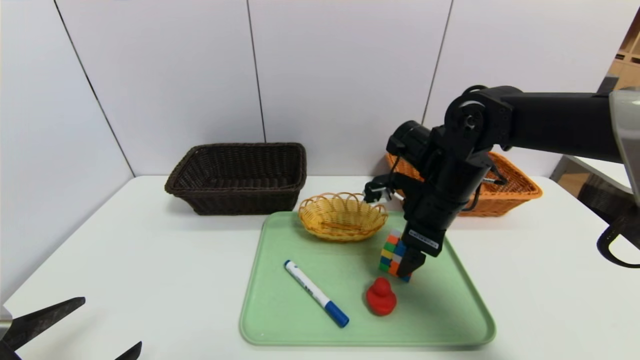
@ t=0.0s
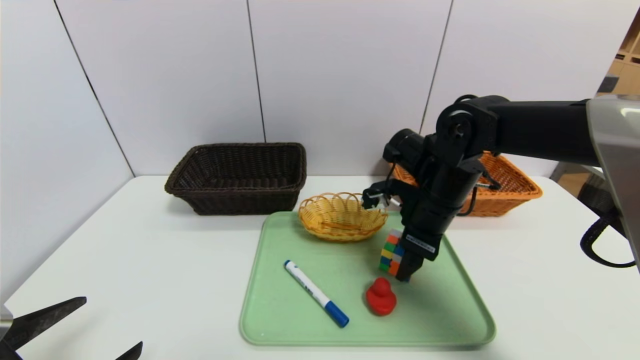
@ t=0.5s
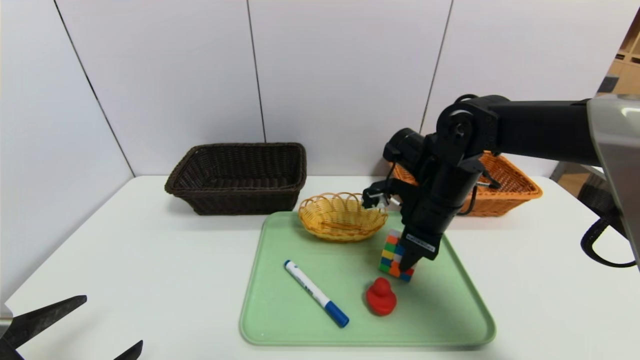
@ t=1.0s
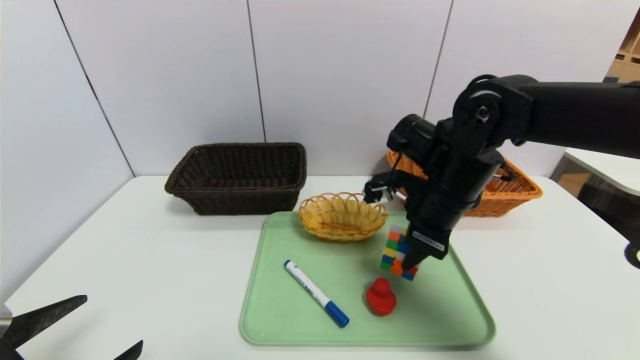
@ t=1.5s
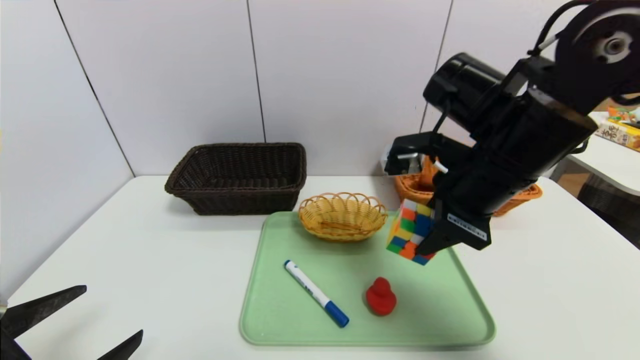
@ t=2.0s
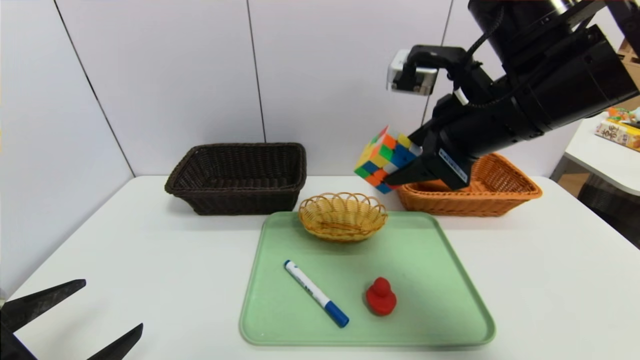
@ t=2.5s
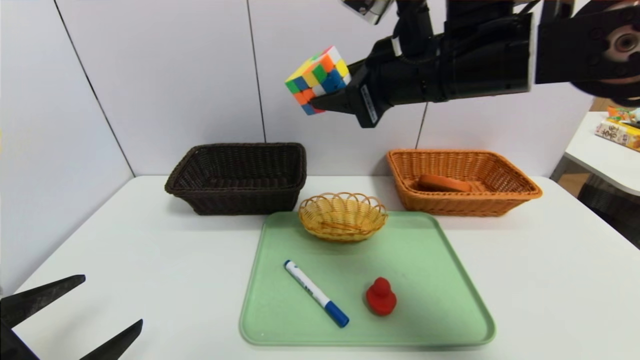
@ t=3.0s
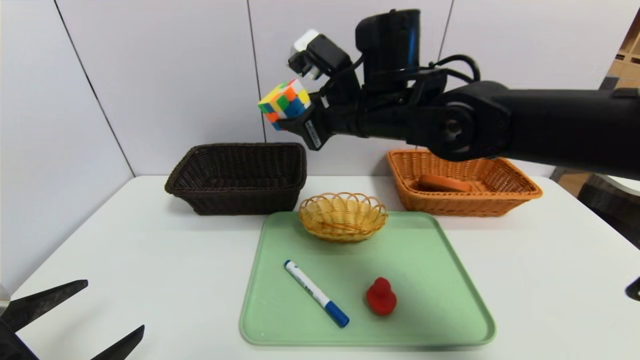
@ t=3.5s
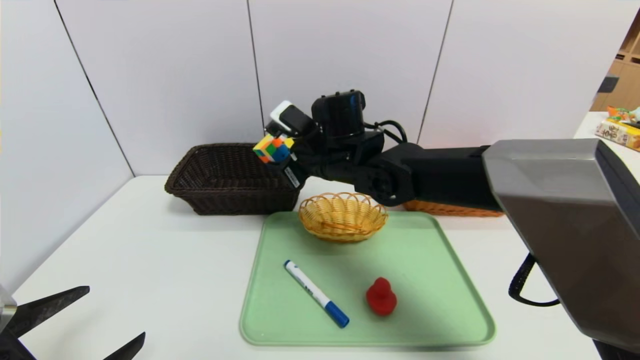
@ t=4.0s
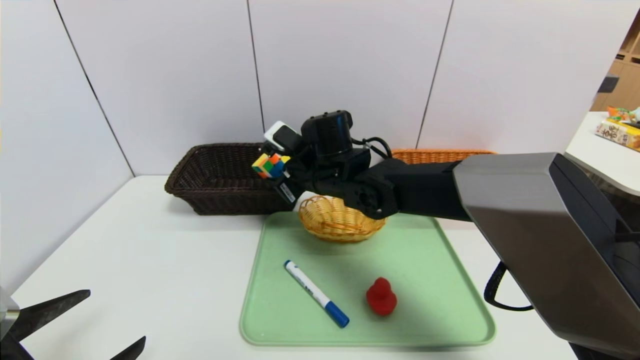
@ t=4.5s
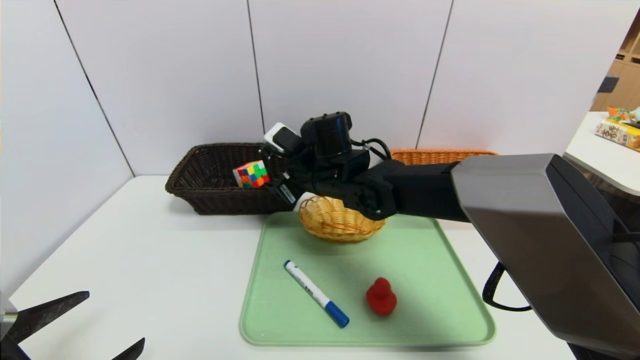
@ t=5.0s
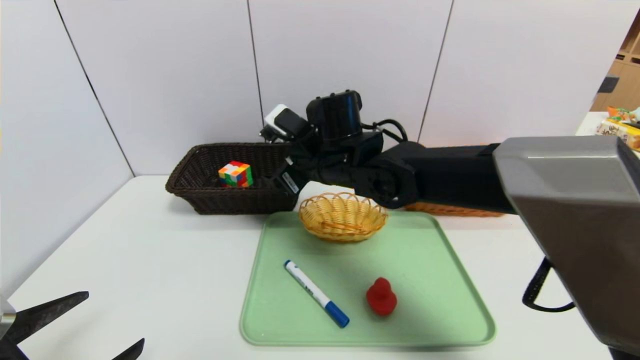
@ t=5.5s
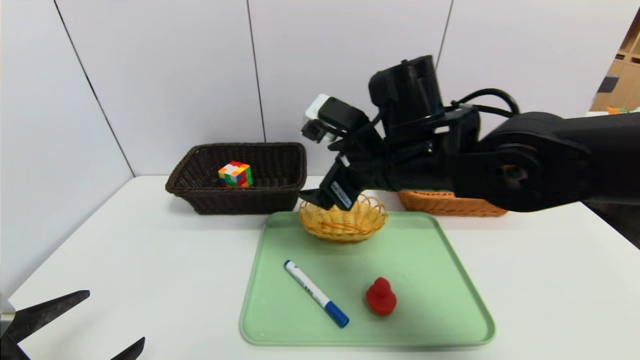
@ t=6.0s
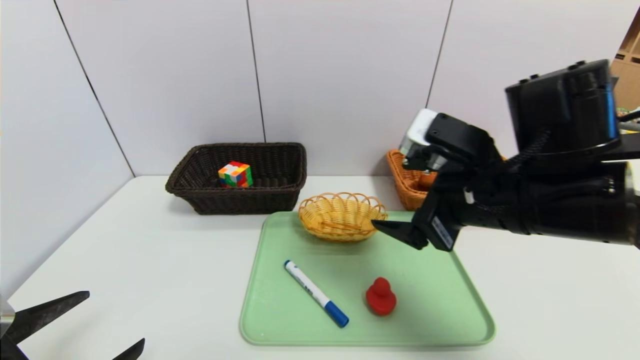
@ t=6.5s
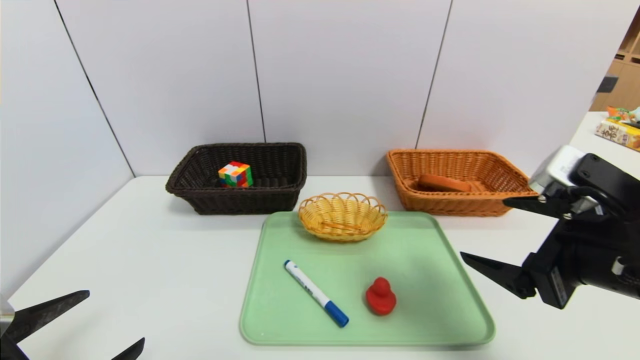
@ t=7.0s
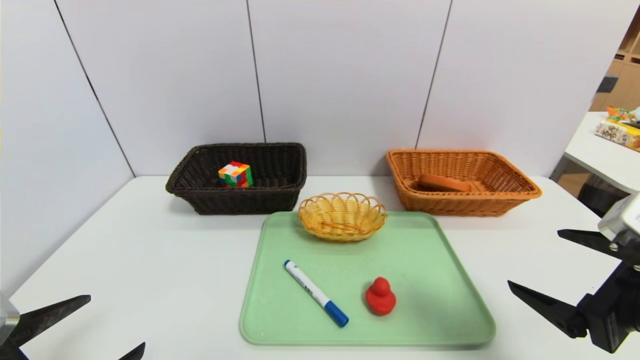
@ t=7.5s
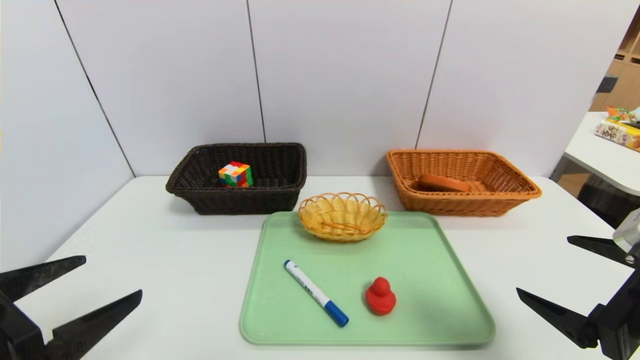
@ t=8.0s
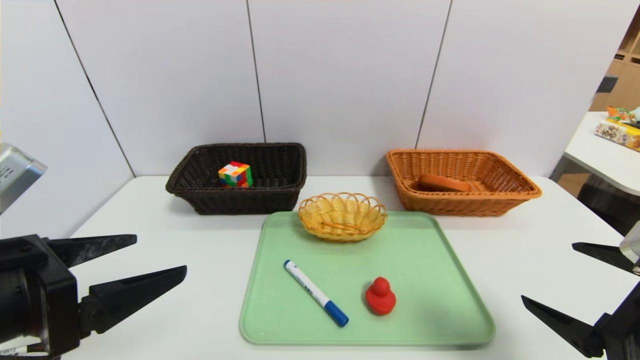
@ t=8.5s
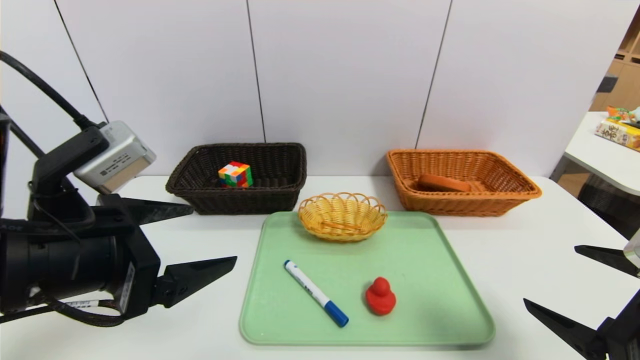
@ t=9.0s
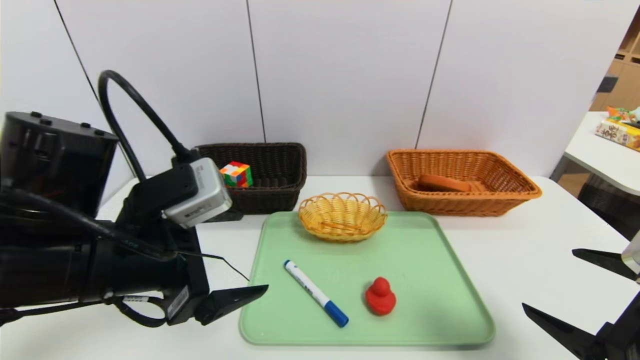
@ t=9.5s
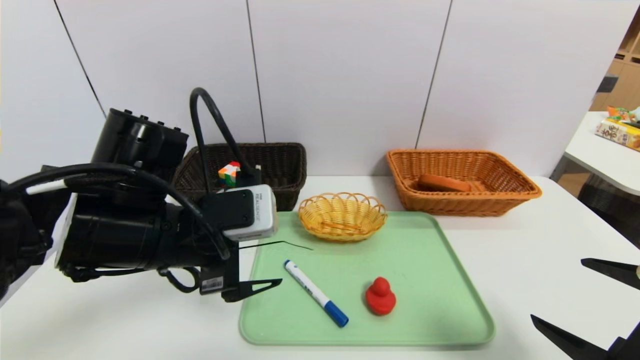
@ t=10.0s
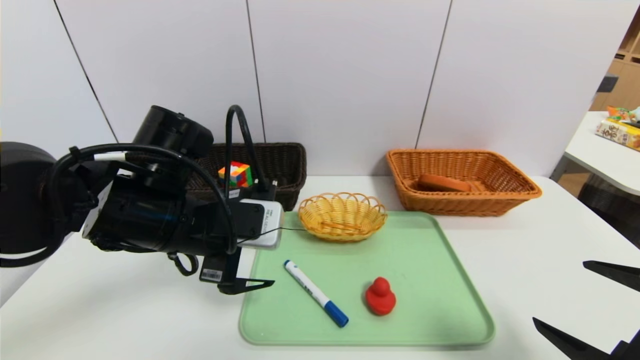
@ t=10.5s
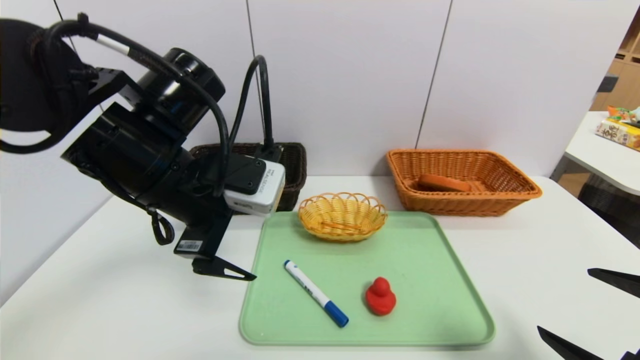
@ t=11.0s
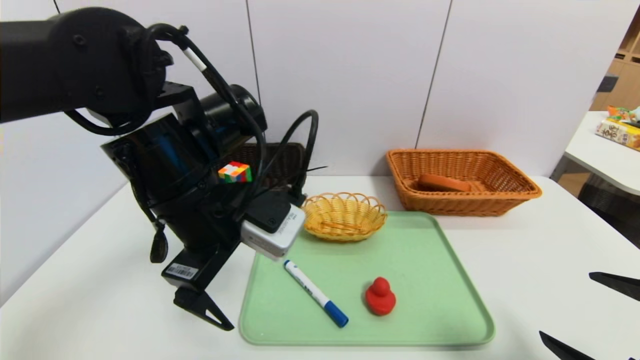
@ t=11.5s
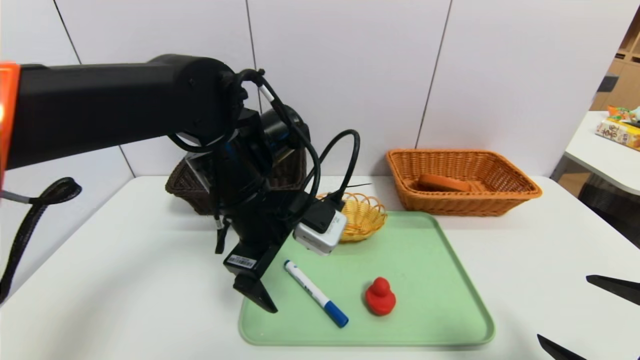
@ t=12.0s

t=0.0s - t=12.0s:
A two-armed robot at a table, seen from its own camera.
Task of the whole recording: place the food in the right basket with the right gripper, and place the non food items in the left basket with the left gripper.
t=0.0s - t=2.0s: The right gripper moves upward and backward, roughly 10 cm, and closes.
t=2.0s - t=4.0s: The right gripper heads to the left, forward and downward, covering roughly 20 cm.
t=4.0s - t=6.0s: The right gripper shifts approximately 10 cm backward and to the right, and opens its fingers.
t=6.0s - t=8.0s: The right gripper heads to the right and backward, covering approximately 30 cm, while the left gripper is displaced upward by approximately 5 cm.
t=8.0s - t=10.0s: The left gripper goes about 20 cm forward and to the right.
t=10.0s - t=12.0s: The left gripper shifts about 10 cm to the right and forward.

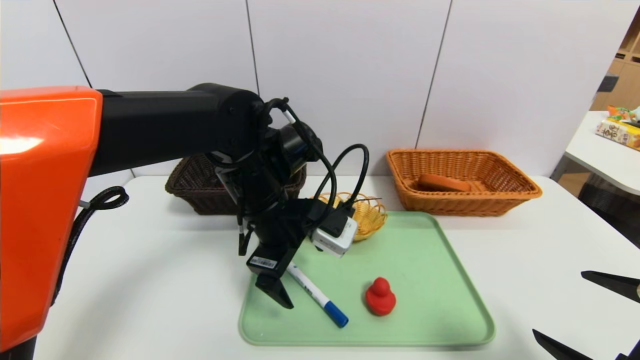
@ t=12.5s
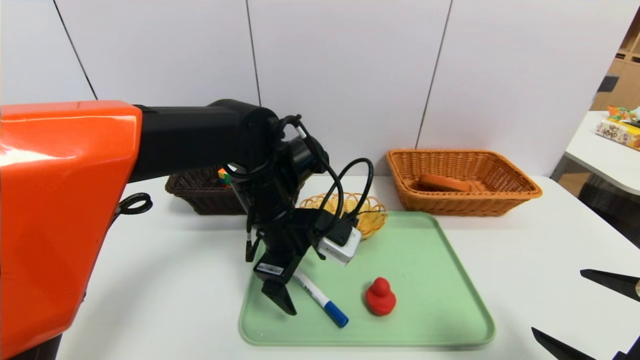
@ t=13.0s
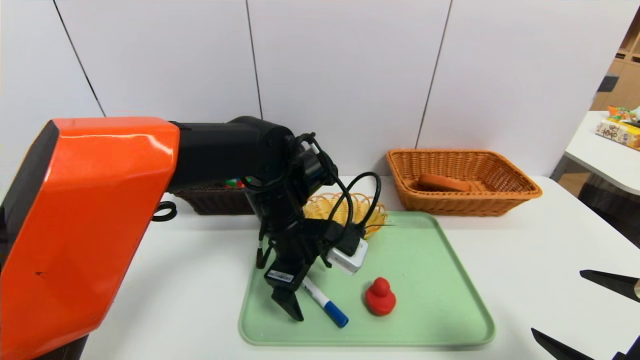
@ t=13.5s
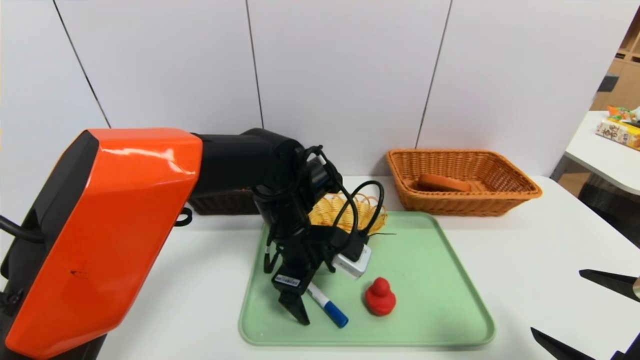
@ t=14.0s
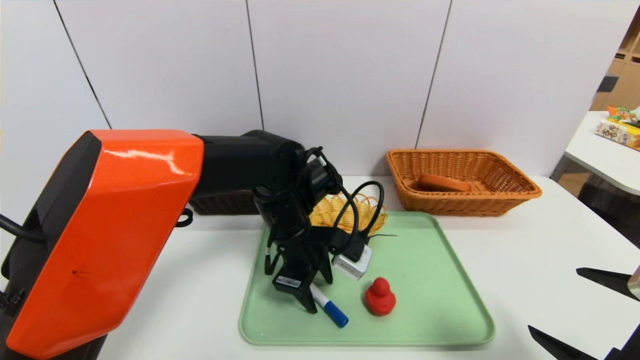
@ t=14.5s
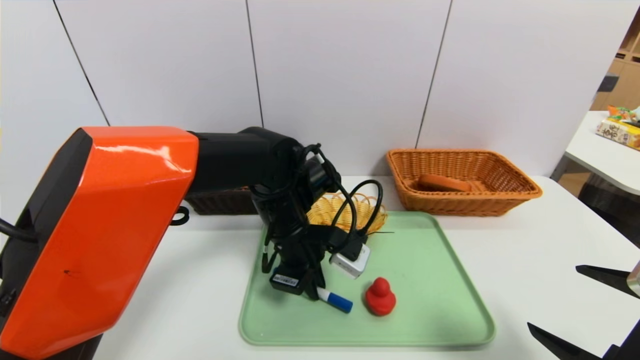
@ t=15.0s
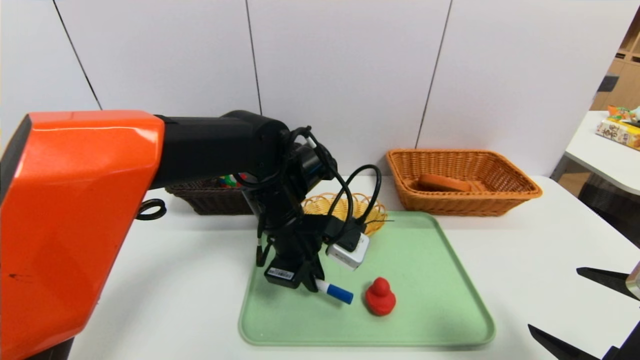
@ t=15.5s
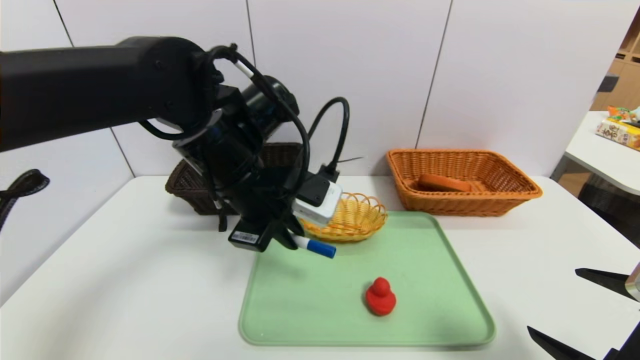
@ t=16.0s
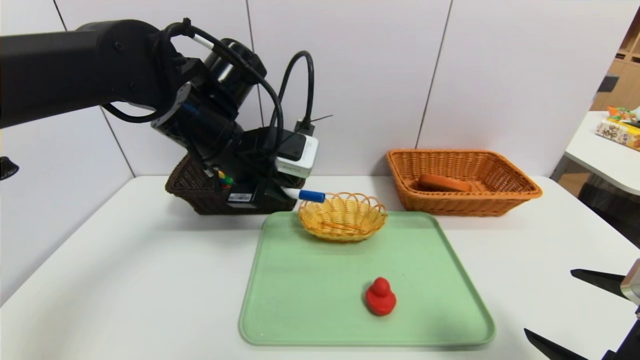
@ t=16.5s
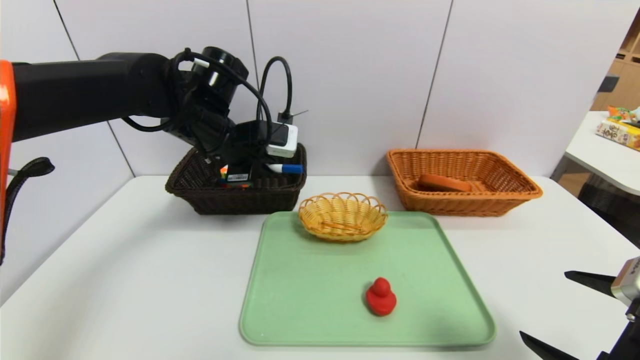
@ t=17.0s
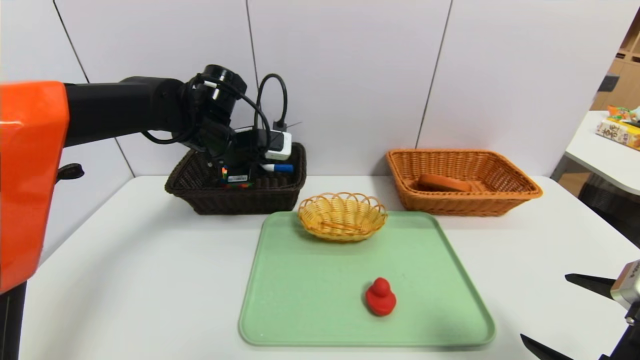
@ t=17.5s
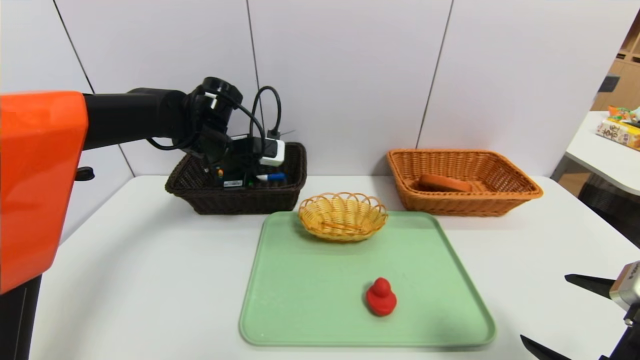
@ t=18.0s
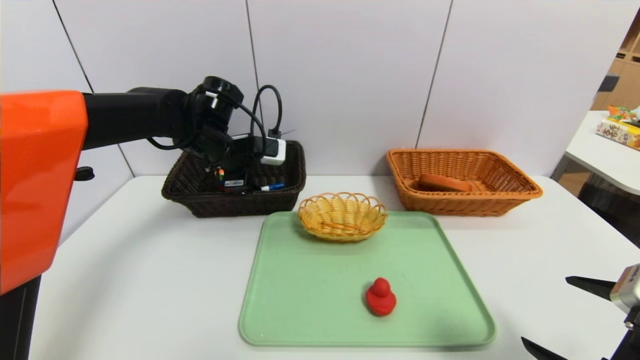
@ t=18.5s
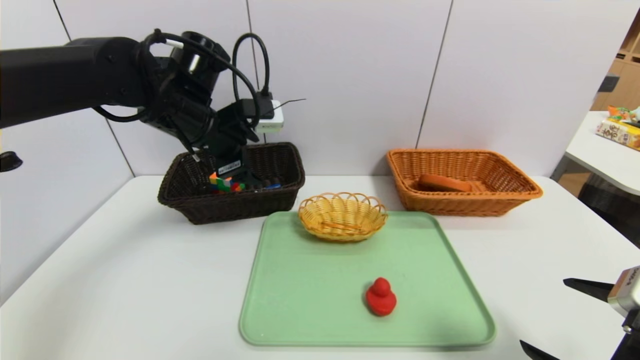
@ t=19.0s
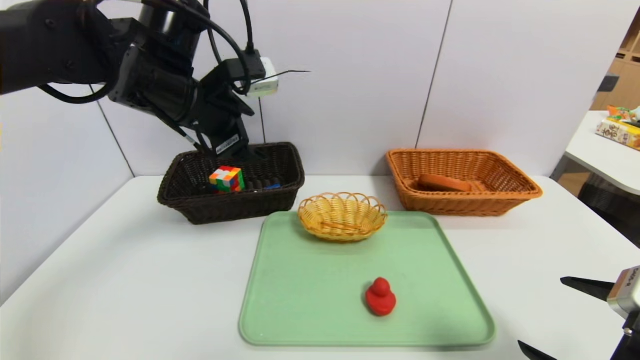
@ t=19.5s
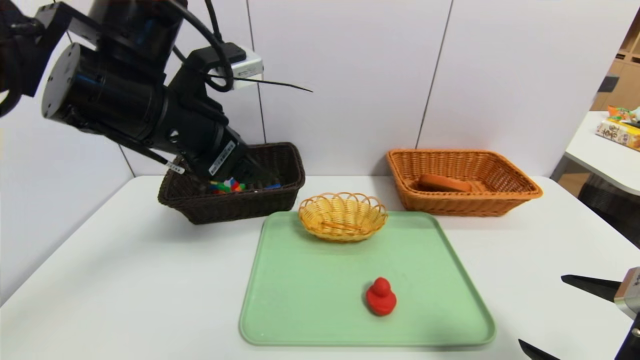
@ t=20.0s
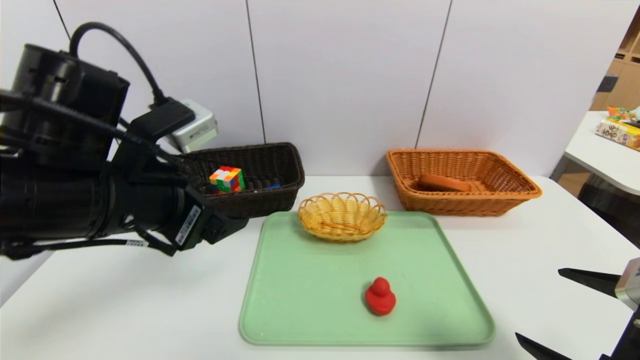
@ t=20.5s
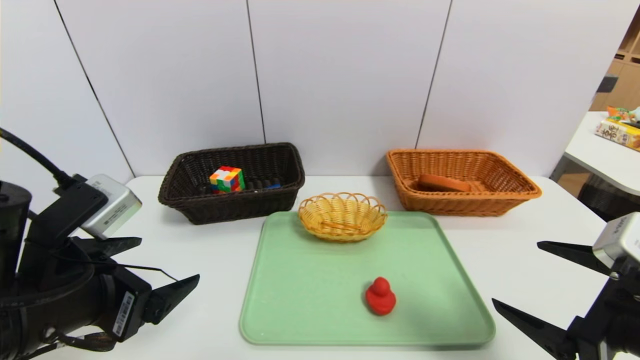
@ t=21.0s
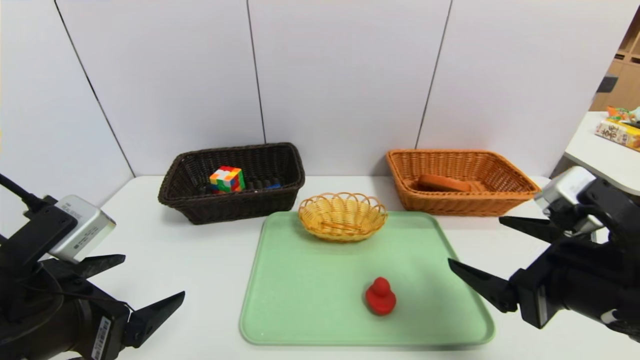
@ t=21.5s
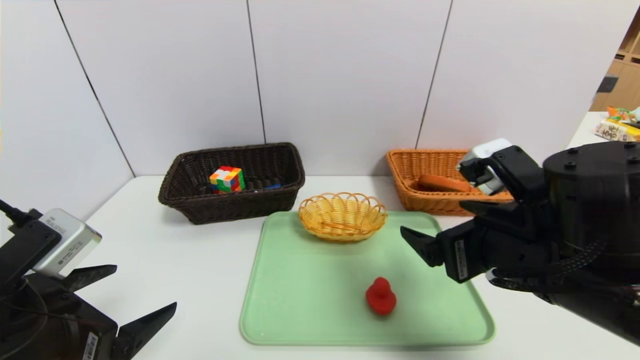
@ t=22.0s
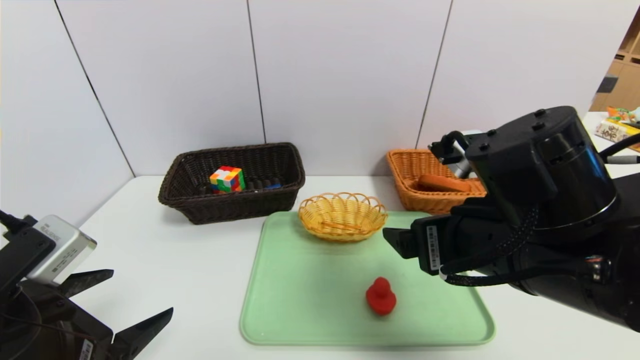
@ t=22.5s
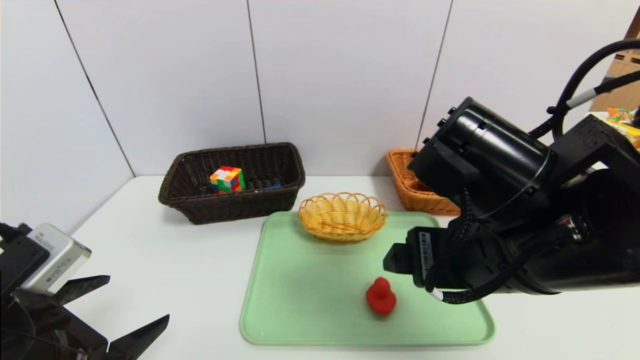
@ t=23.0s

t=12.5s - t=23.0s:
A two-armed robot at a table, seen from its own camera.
Task of the whole recording: place the food in the right basket with the right gripper, and place the non food items in the left basket with the left gripper.
Step, t=12.5s - t=18.0s: Grasp the blue marker and put it in the left basket.
t=12.5s - t=14.5s: The left gripper moves downward, roughly 5 cm, and closes.
t=14.5s - t=16.5s: The left gripper moves upward and to the left, some 15 cm, and closes its fingers.
t=16.5s - t=19.0s: The left gripper opens.
t=19.0s - t=21.0s: The left gripper travels backward by approximately 25 cm.
t=21.0s - t=23.0s: The right gripper goes approximately 15 cm to the left and upward.
